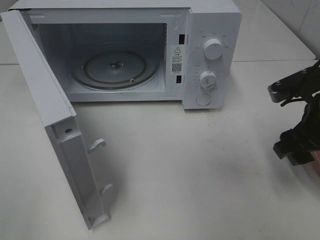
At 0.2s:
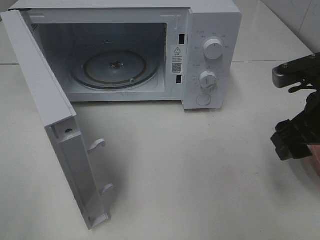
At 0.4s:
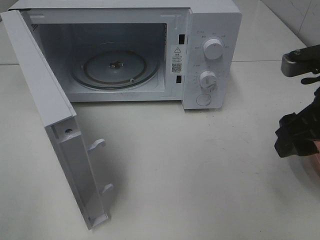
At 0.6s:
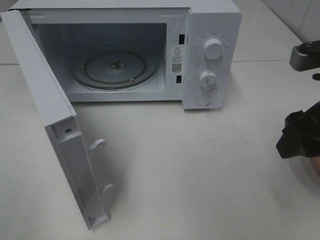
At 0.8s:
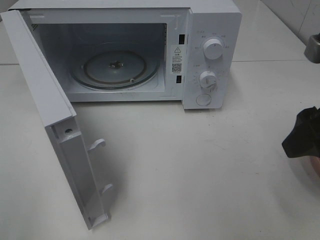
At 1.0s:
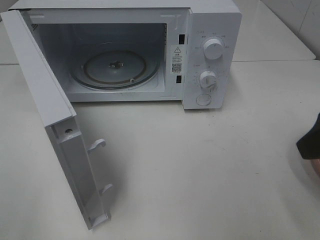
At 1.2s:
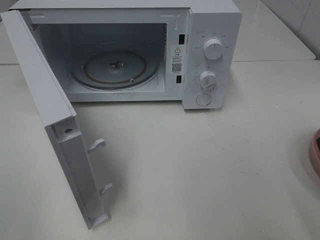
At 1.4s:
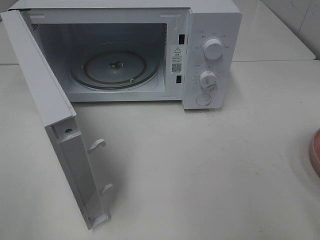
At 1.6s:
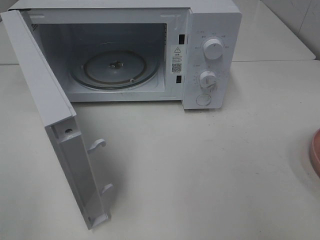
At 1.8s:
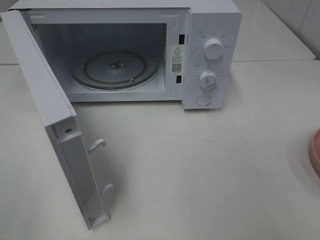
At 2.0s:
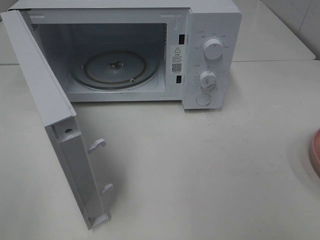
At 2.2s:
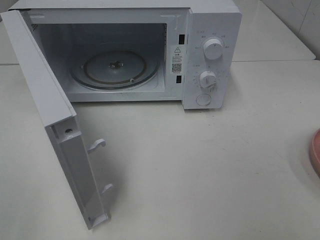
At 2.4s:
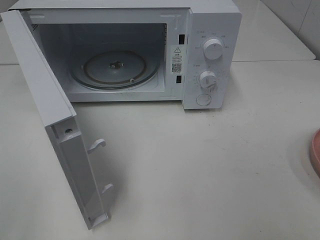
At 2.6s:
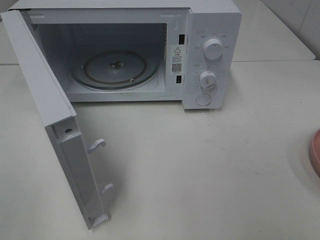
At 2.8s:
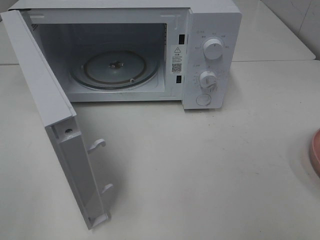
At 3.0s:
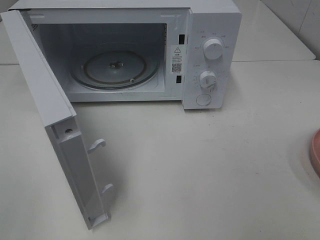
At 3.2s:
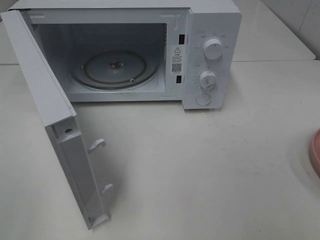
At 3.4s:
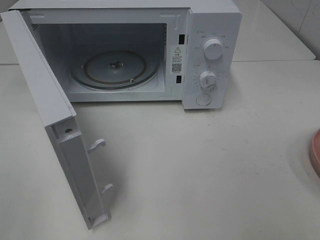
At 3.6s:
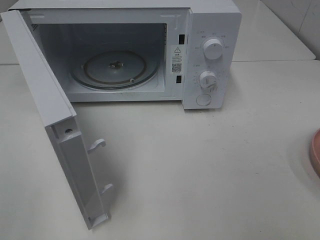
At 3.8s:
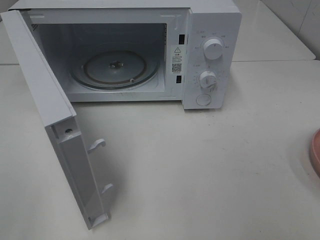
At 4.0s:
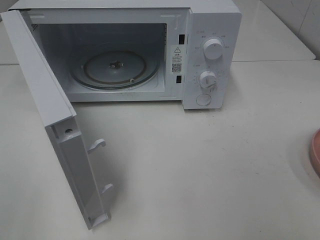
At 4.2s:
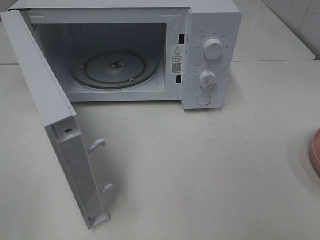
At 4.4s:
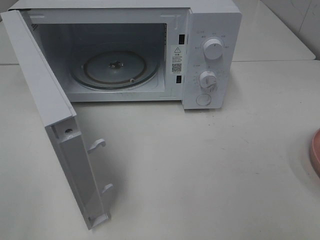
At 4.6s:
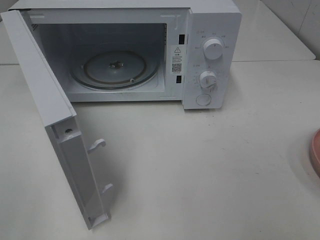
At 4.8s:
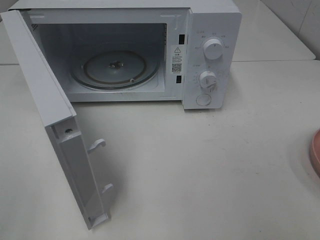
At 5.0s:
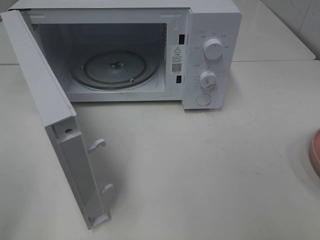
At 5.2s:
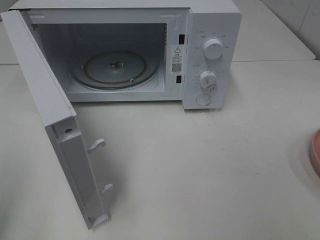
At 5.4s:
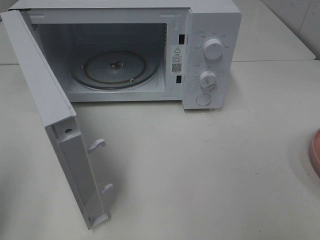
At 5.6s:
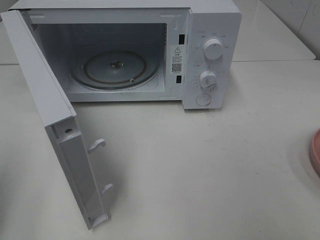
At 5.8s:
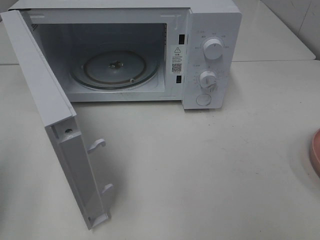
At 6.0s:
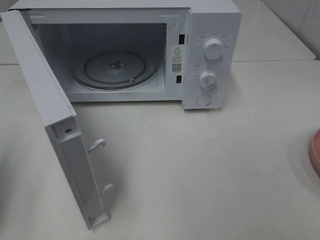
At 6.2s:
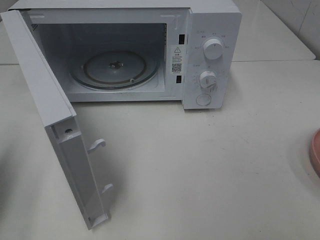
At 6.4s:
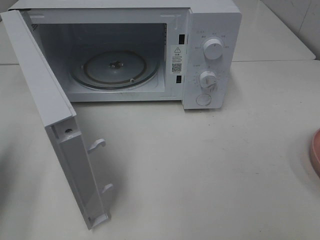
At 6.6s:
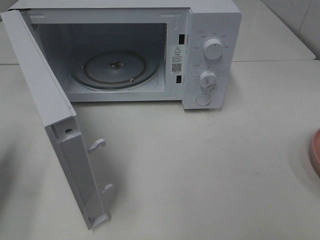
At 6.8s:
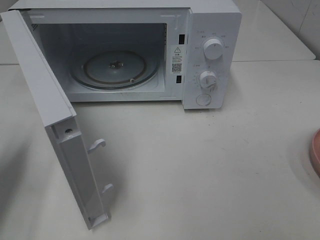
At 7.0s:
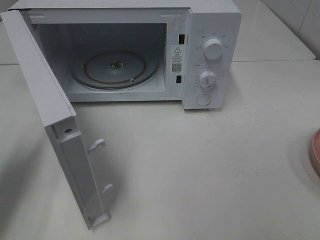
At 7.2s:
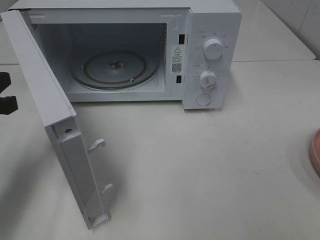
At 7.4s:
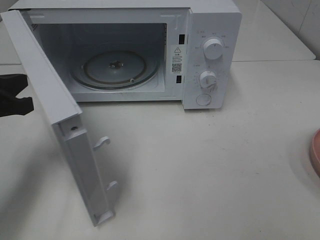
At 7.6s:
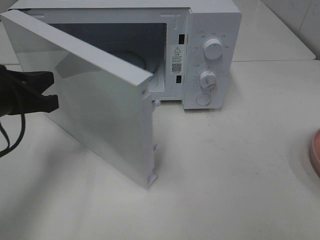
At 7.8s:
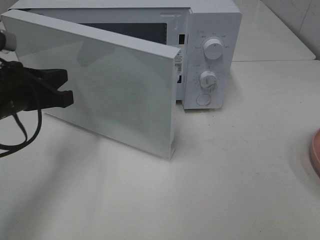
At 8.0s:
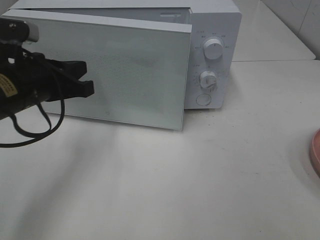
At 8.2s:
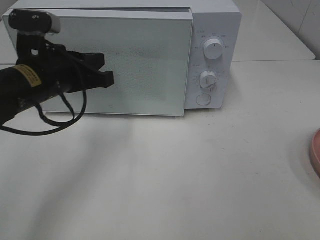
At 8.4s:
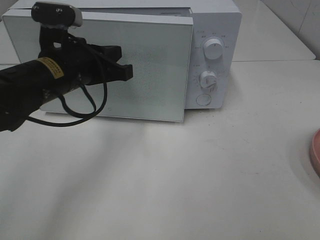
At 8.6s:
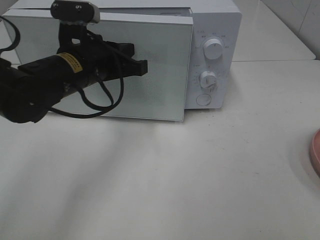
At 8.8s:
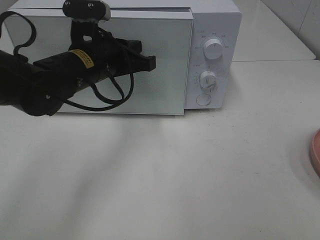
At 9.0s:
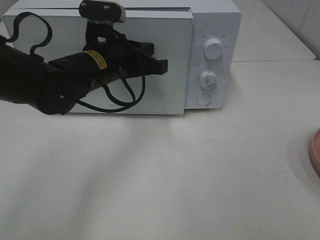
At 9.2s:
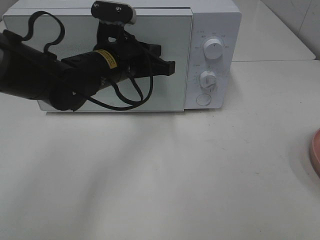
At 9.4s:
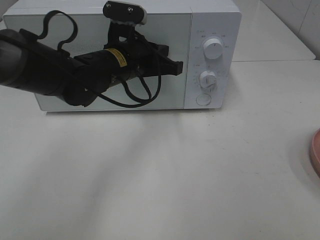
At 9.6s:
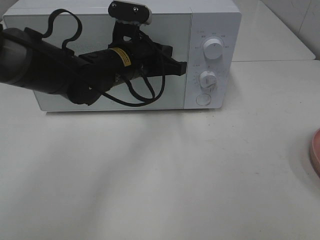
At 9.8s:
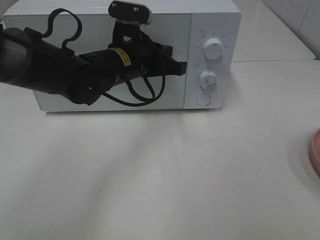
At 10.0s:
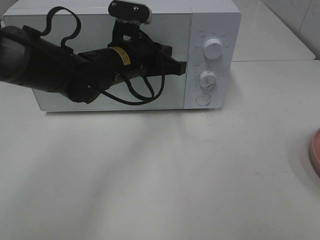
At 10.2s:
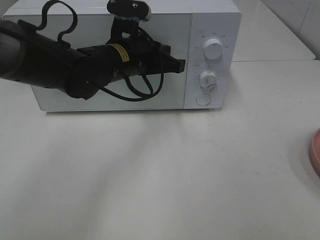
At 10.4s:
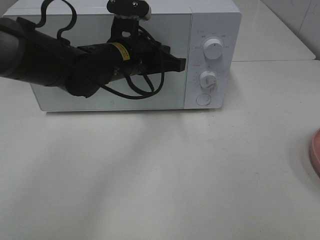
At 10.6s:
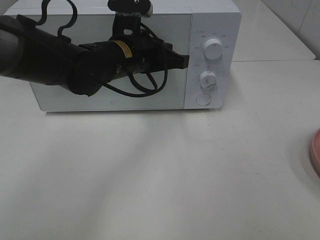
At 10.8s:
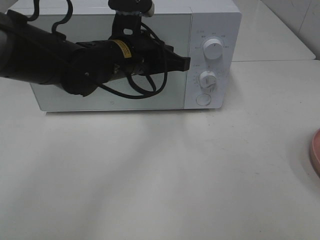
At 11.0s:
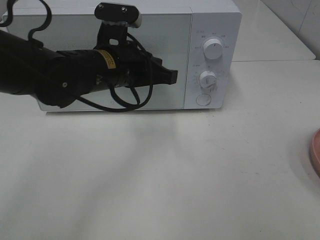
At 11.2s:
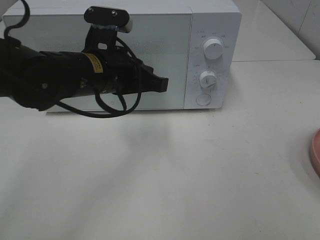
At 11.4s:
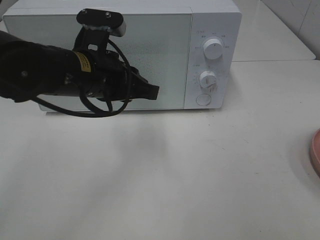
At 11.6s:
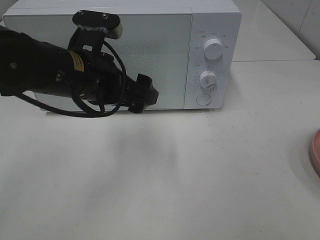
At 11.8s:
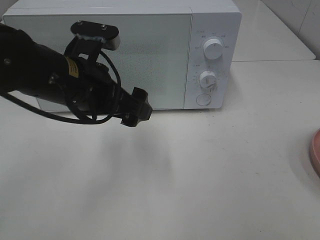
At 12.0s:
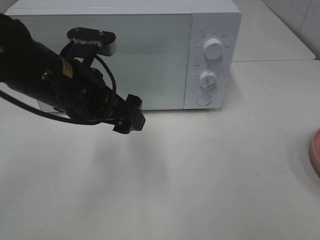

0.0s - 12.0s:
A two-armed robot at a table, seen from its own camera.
Task of the whole recording: Heat Sandwich.
Step, 0.4s - 10.0s: Left hand: close the microwave door.
0.0s - 1.6s: The right gripper moves backward and upward, roughly 25 cm.
3.0s - 4.4s: The two grippers keep their place.
4.4s - 6.0s: The left gripper heads forward, covering approximately 15 cm, and closes.
6.0s - 7.6s: The left gripper heads forward, to the right and downward, covering about 15 cm.
7.6s - 9.0s: The left gripper travels to the right and forward by about 15 cm.
9.0s - 10.4s: There are only small adjustments of the grippers.
10.4s - 12.0s: The left gripper is displaced backward and to the left by some 10 cm, and opens up.

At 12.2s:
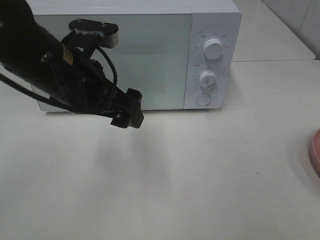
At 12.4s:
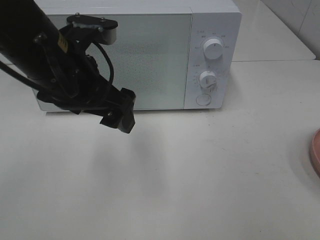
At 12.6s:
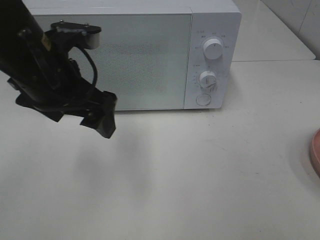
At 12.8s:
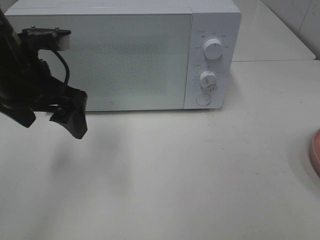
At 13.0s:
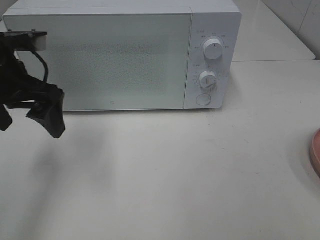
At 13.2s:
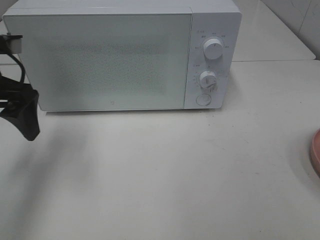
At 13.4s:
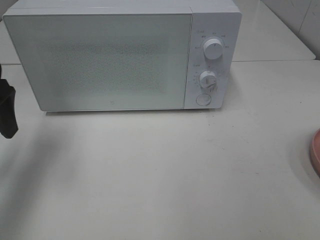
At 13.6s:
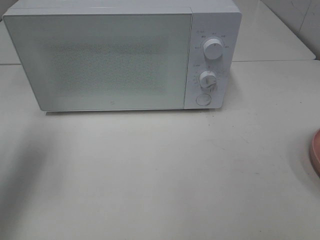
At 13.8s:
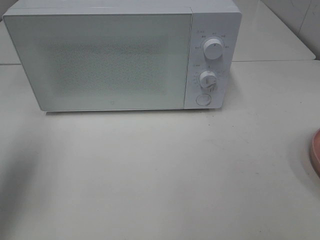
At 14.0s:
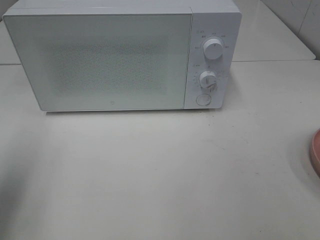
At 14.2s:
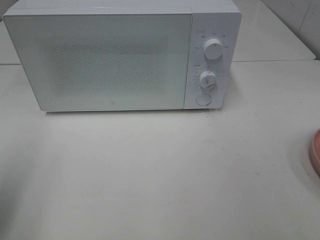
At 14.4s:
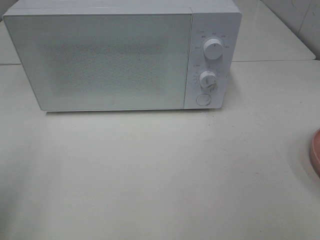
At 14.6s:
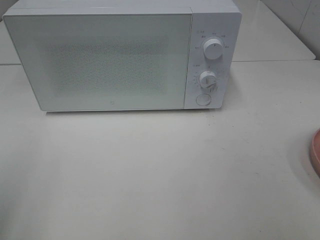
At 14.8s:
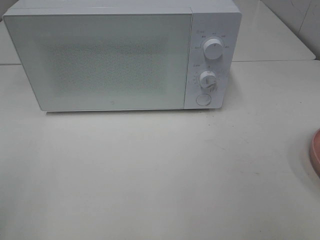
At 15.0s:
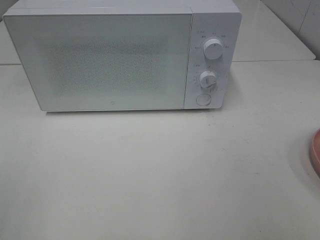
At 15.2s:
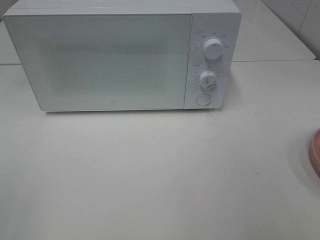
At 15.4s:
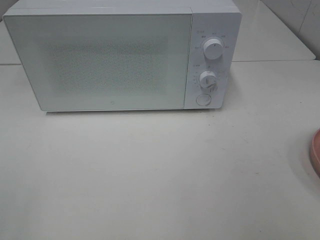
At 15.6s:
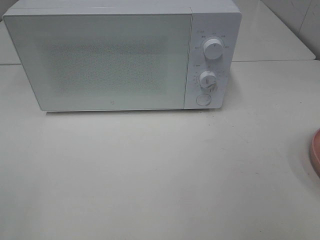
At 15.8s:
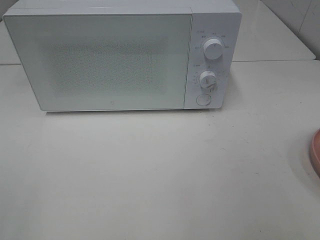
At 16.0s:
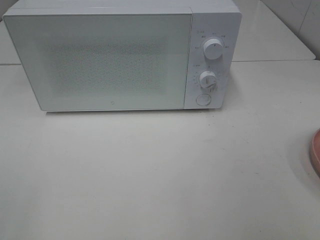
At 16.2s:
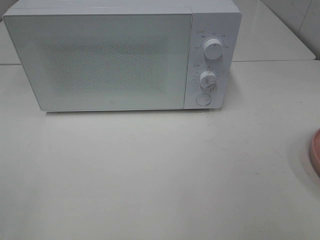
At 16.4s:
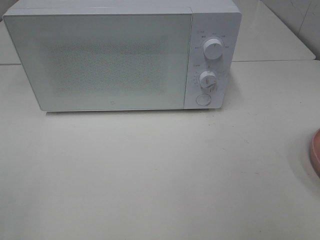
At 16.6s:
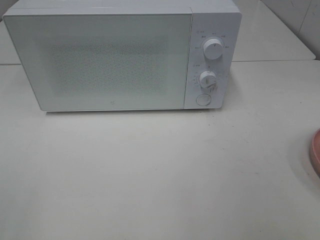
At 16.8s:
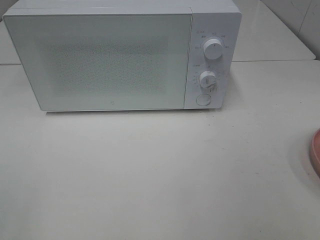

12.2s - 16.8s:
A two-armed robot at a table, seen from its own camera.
Task of the whole recording: Heat Sandwich.
12.2s - 13.8s: The left gripper is displaced to the left by some 20 cm.
13.8s - 15.2s: The left gripper goes about 20 cm backward.
15.2s - 16.8s: The two grippers keep their place.

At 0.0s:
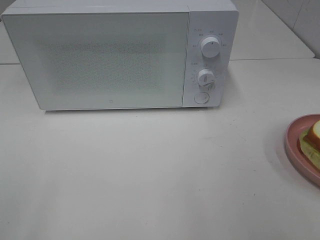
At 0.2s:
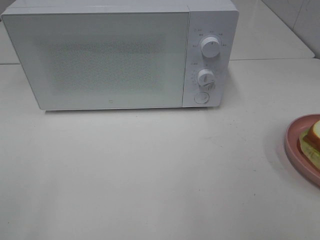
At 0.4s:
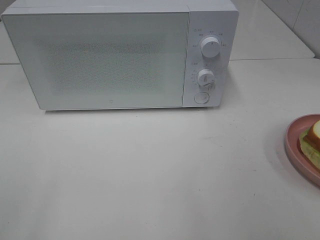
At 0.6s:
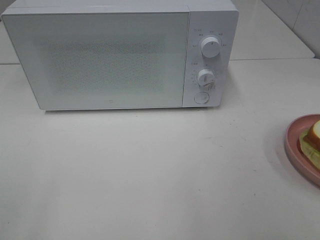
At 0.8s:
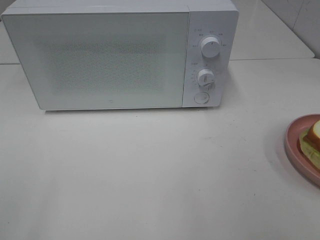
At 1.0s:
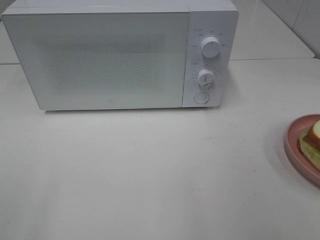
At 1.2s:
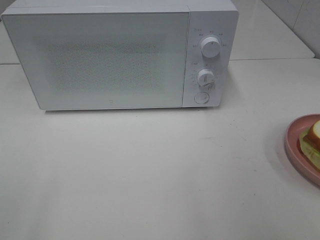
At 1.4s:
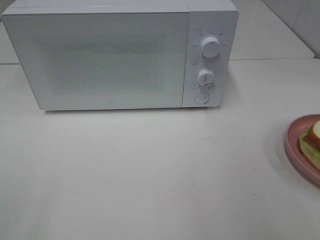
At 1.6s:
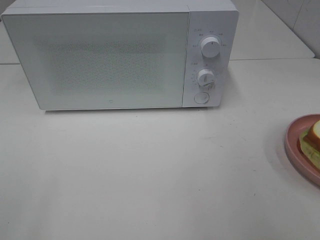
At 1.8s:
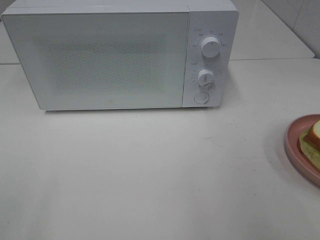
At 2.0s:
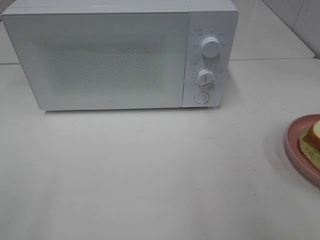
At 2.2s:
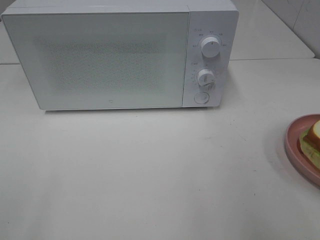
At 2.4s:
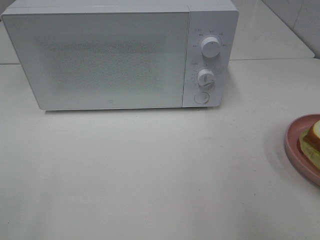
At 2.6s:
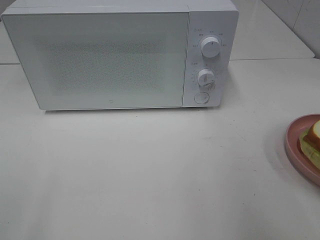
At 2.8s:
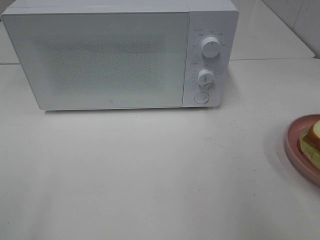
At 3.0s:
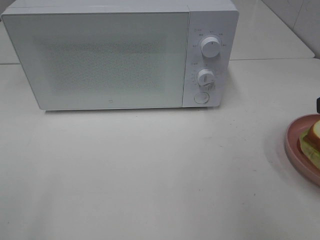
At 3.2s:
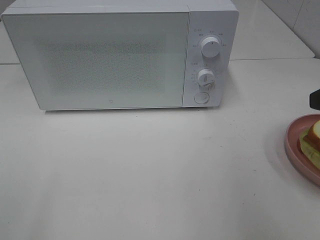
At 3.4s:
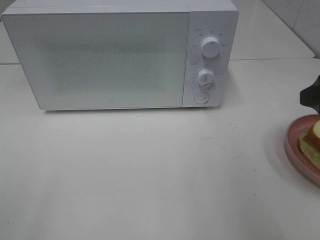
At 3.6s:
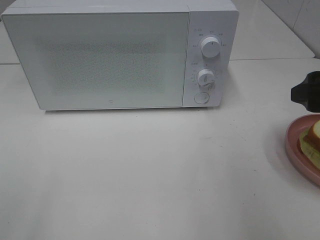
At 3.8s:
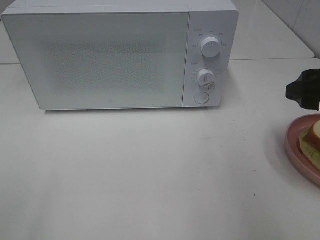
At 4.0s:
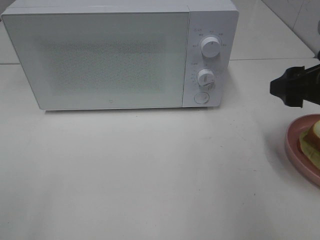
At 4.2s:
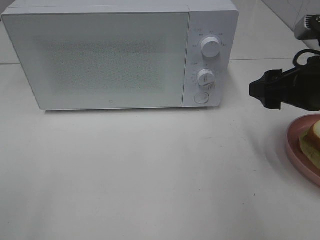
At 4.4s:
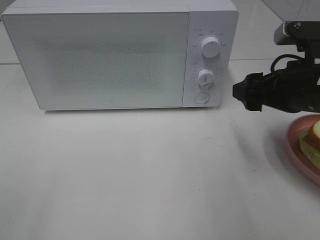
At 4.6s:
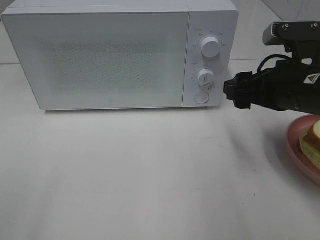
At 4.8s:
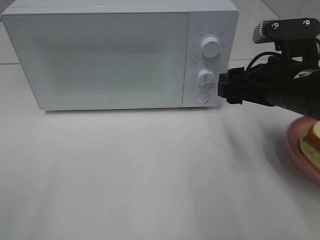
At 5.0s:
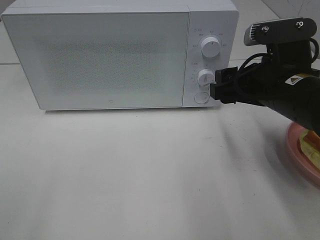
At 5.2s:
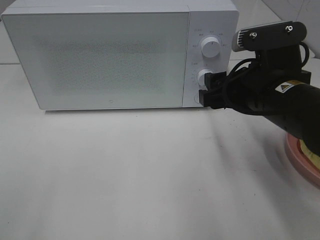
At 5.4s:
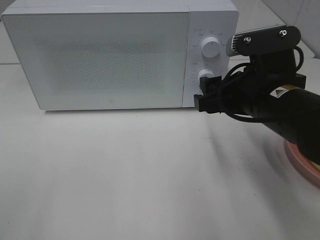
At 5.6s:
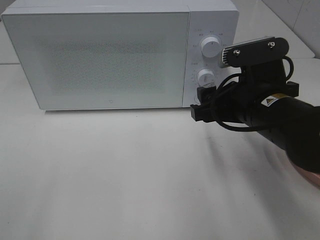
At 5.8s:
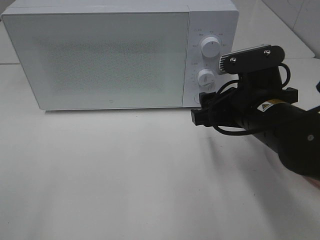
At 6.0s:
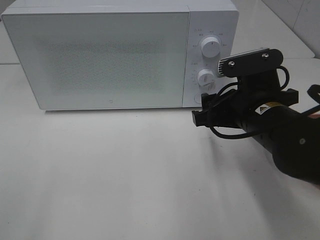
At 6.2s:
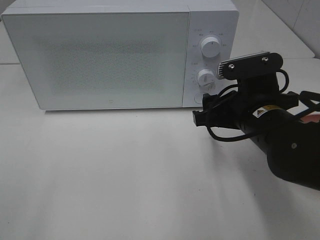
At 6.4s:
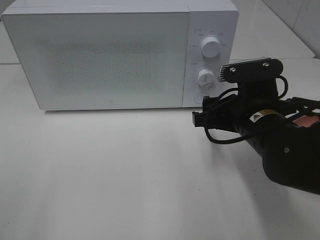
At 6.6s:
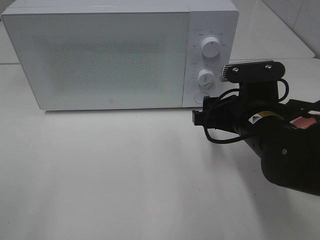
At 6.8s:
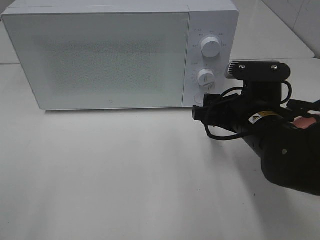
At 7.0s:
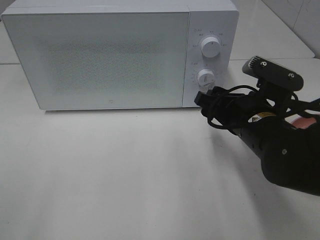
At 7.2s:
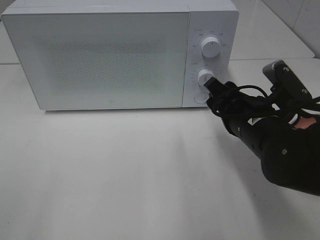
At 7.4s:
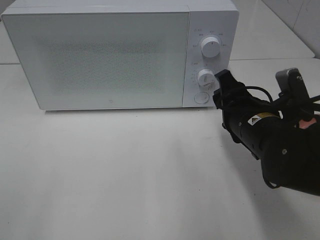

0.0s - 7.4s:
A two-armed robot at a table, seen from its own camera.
Task of the whole recording: Heat Sandwich.
3.0s - 4.4s: The right gripper is displaced forward, to the left and downward by approximately 10 cm.
4.4s - 6.0s: The right gripper is displaced to the left by about 5 cm.
